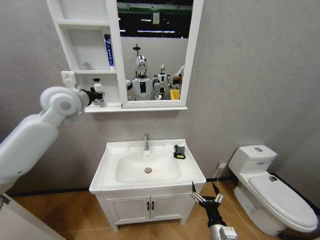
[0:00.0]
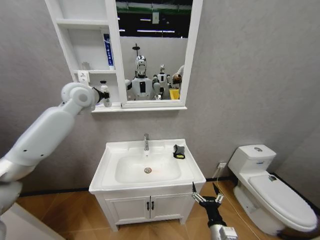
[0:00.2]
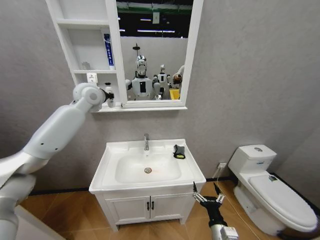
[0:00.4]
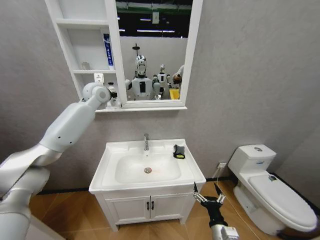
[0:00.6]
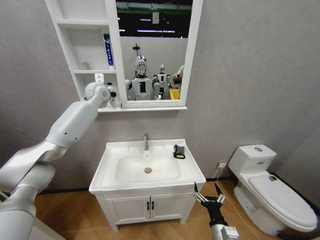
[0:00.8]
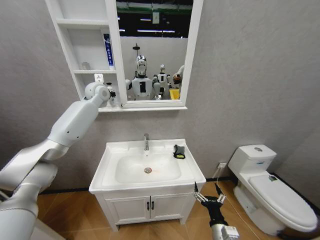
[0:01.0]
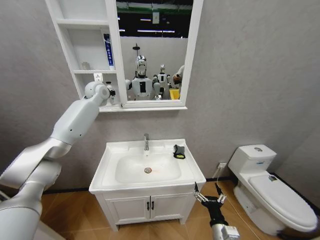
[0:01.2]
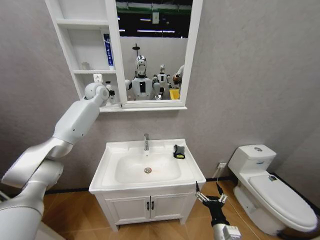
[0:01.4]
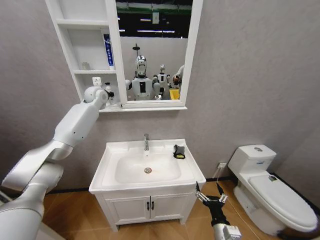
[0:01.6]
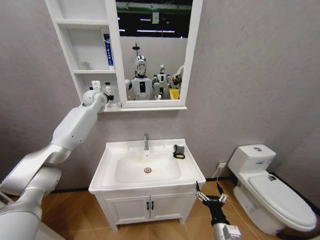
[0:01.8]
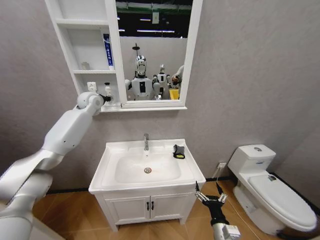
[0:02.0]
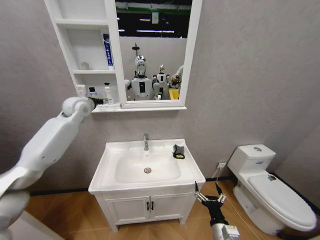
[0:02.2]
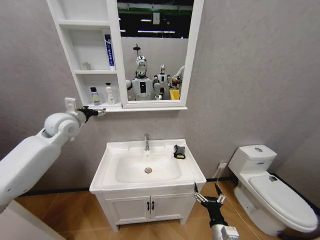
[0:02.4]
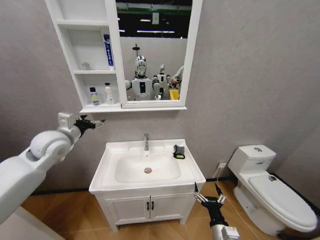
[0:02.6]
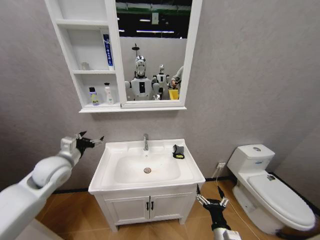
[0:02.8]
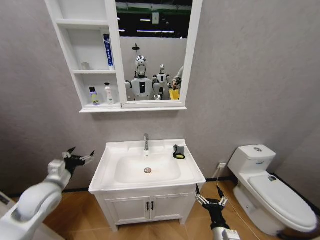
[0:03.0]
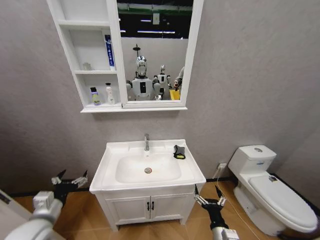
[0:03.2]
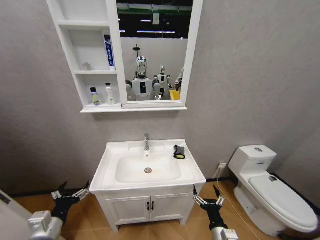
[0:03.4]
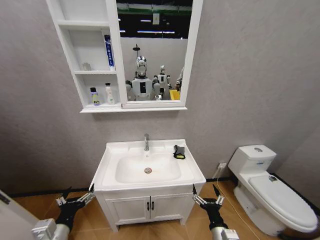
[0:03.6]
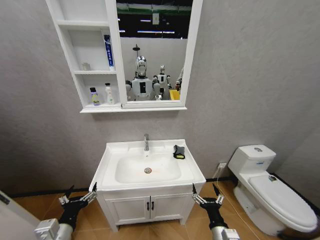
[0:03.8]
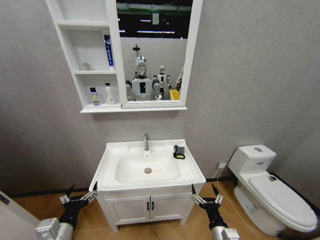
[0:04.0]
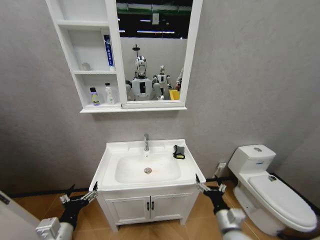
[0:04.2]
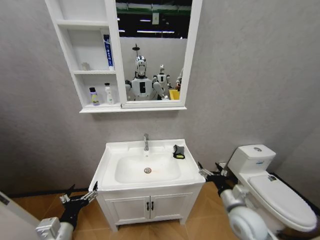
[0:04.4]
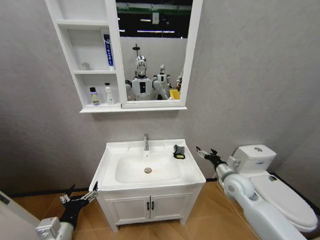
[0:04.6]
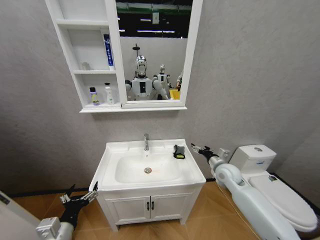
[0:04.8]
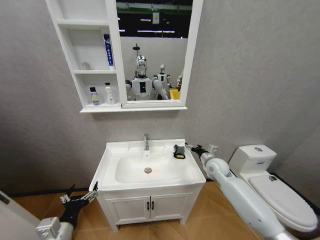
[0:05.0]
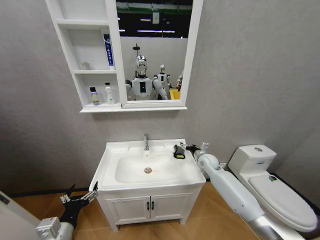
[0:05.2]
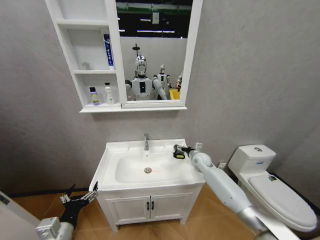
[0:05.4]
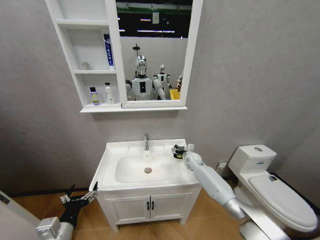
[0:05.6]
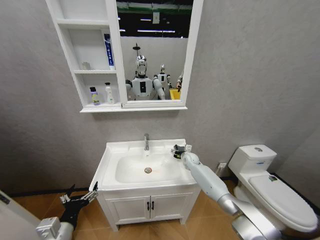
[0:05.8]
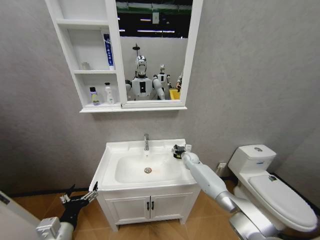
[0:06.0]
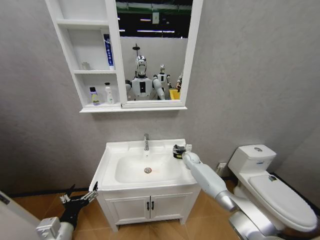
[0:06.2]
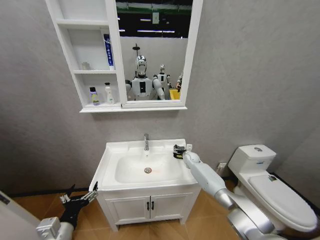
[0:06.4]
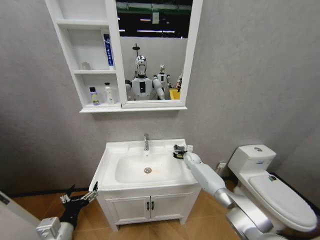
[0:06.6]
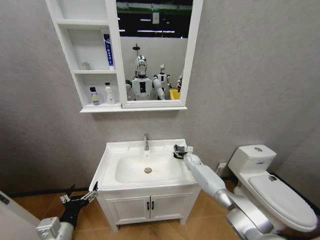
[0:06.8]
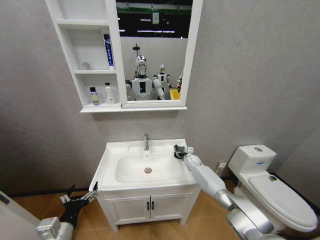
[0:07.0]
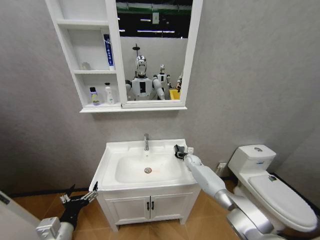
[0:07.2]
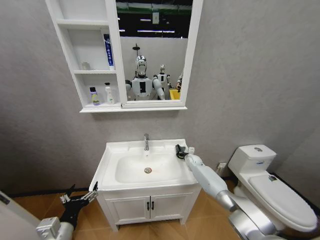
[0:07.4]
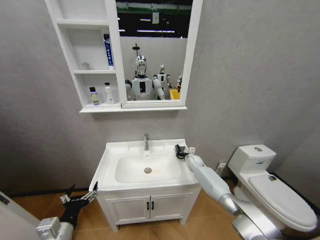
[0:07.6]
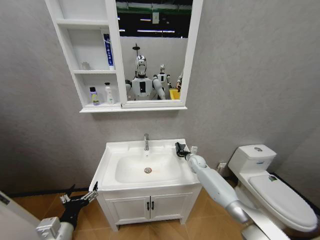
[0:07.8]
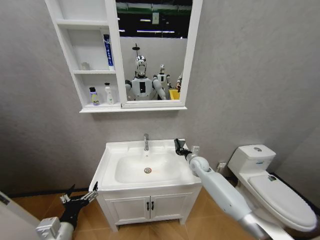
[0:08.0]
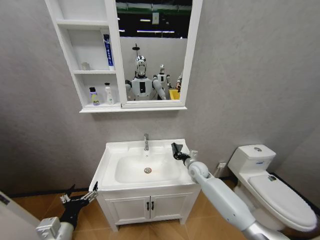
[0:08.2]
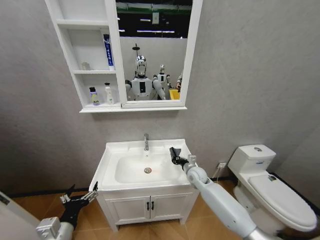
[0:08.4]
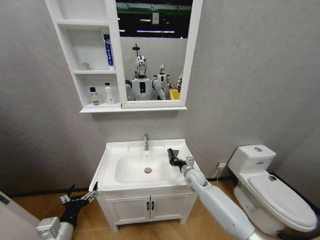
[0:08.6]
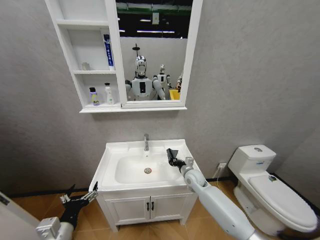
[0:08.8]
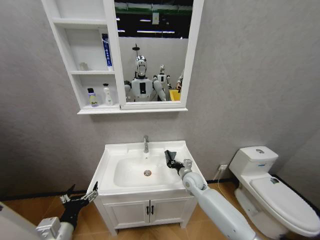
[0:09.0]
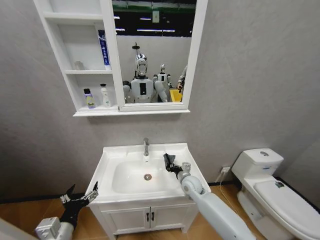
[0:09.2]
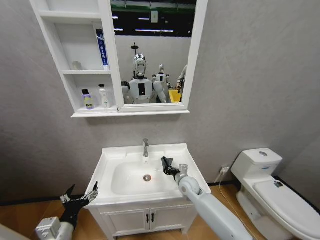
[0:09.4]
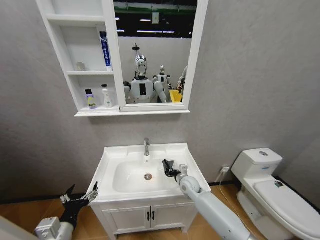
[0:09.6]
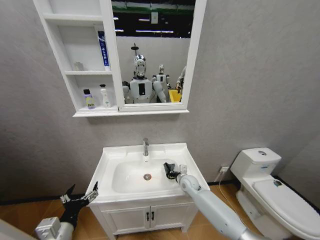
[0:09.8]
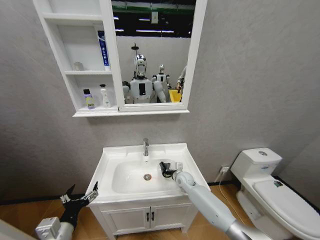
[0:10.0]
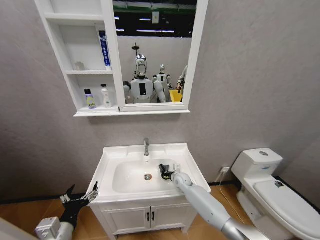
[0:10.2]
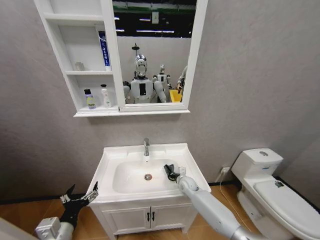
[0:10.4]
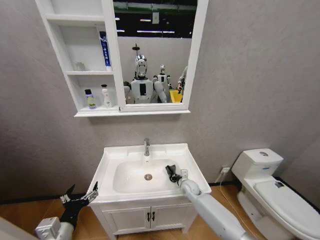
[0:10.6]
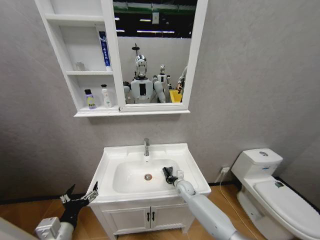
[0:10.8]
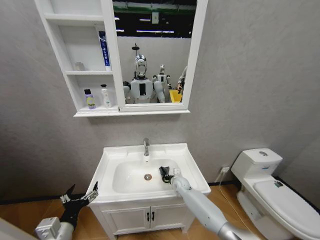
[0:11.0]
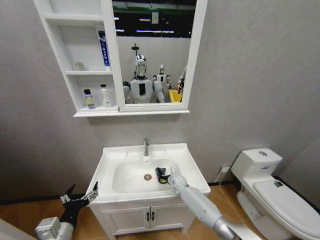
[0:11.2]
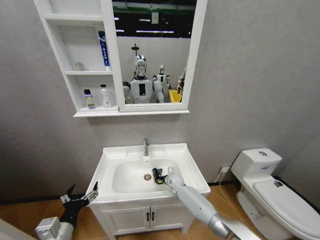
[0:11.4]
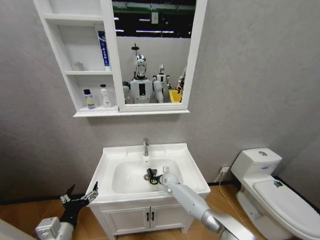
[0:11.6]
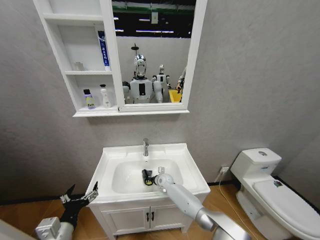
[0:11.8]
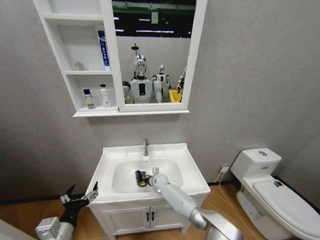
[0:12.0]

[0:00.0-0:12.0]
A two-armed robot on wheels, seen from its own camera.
Task of the whole recording: Move facial cleanser and shampoo from washbasin to cabinet, then wipe washbasin with towel.
0:00.0 to 0:01.6: The left gripper shifts about 20 cm forward.
0:01.6 to 0:03.0: The left gripper moves backward and downward, approximately 40 cm, and opens up.
0:03.0 to 0:04.4: The left gripper is displaced backward and to the right by some 15 cm, while the right gripper moves forward, upward and to the right, about 15 cm.
0:04.4 to 0:06.0: The right gripper goes about 35 cm forward.
0:06.0 to 0:07.6: The right gripper closes up.
0:07.6 to 0:09.0: The right gripper is displaced backward and to the left by about 20 cm.
0:09.0 to 0:10.4: The right gripper travels downward by roughly 10 cm.
0:10.4 to 0:12.0: The right gripper is displaced to the left by roughly 15 cm.

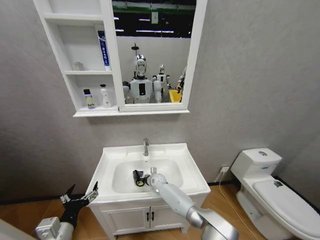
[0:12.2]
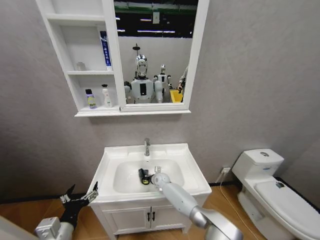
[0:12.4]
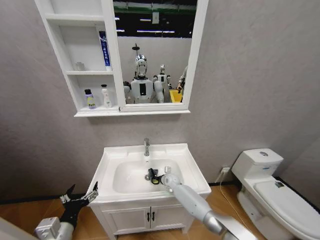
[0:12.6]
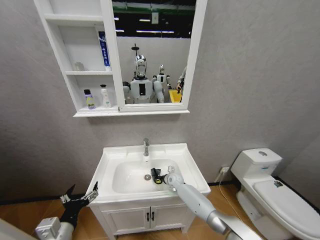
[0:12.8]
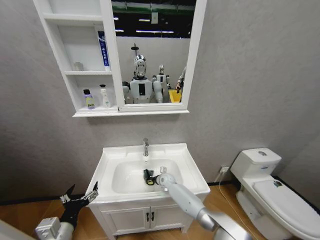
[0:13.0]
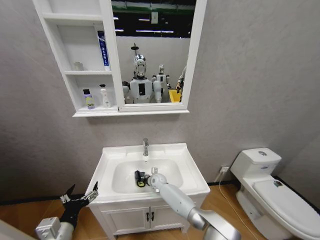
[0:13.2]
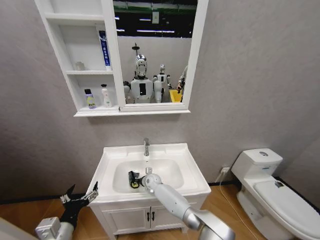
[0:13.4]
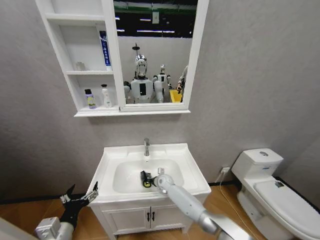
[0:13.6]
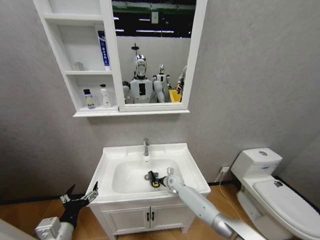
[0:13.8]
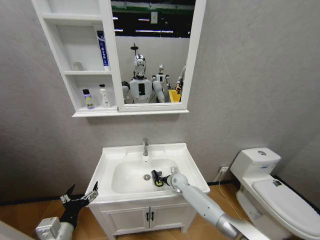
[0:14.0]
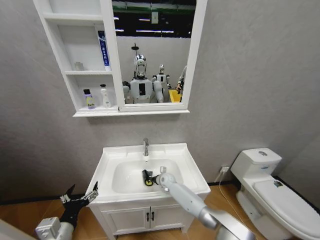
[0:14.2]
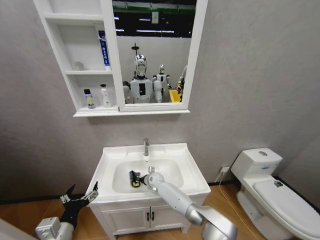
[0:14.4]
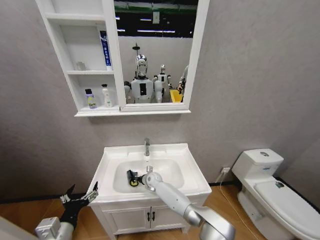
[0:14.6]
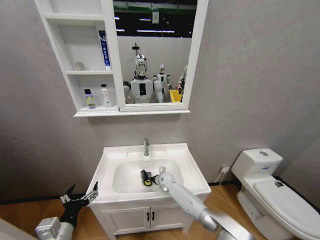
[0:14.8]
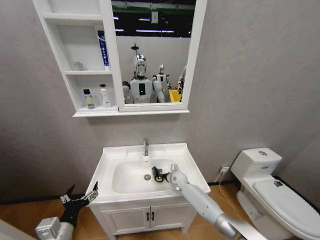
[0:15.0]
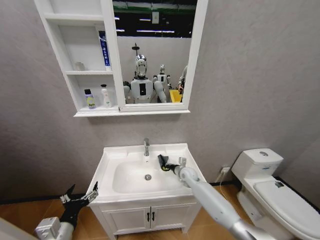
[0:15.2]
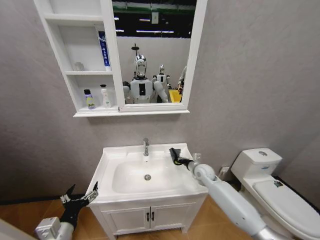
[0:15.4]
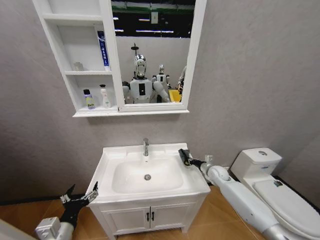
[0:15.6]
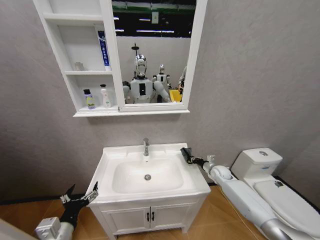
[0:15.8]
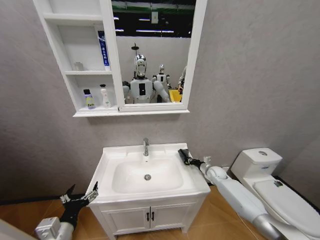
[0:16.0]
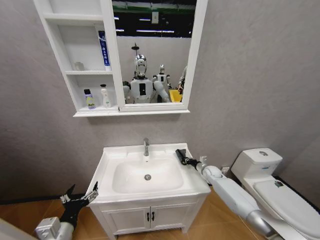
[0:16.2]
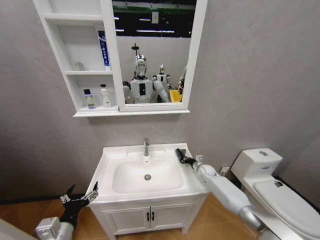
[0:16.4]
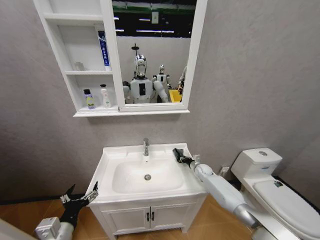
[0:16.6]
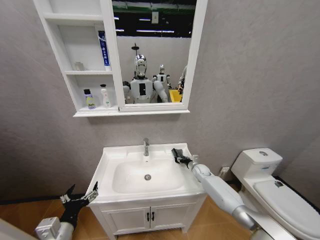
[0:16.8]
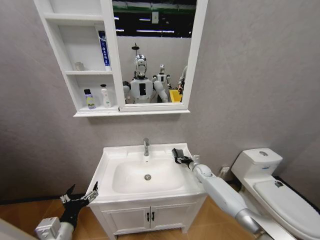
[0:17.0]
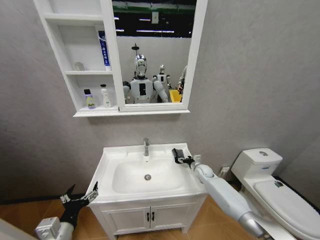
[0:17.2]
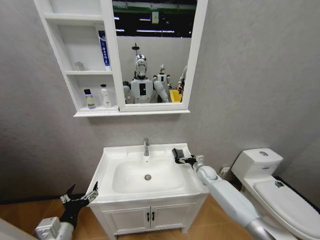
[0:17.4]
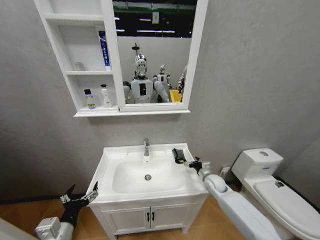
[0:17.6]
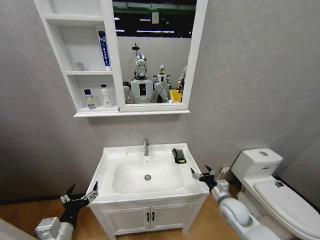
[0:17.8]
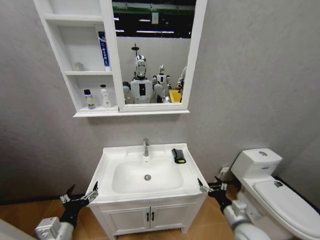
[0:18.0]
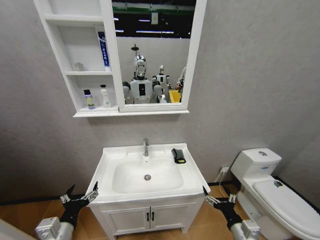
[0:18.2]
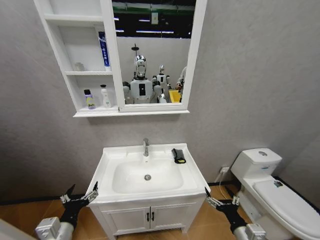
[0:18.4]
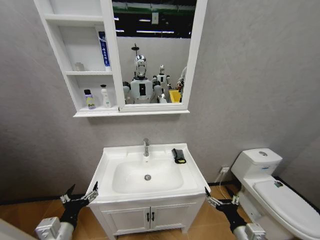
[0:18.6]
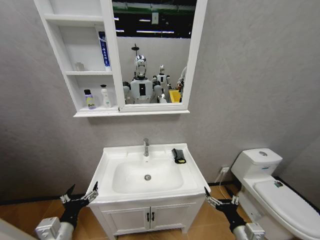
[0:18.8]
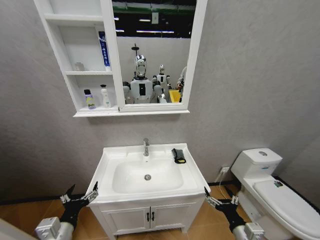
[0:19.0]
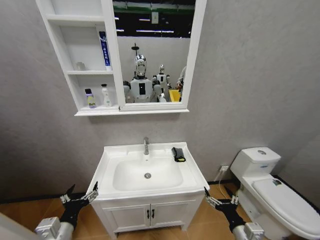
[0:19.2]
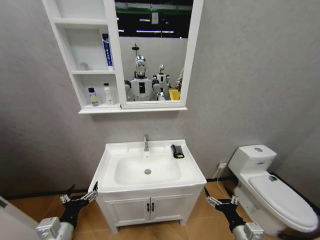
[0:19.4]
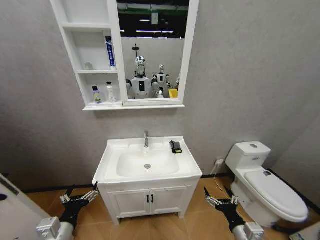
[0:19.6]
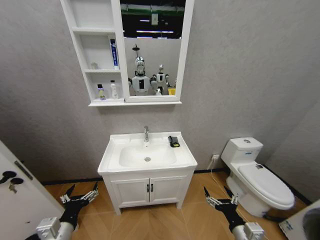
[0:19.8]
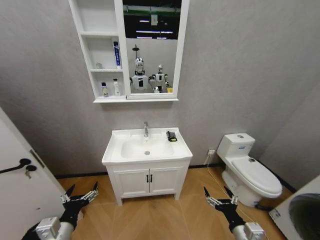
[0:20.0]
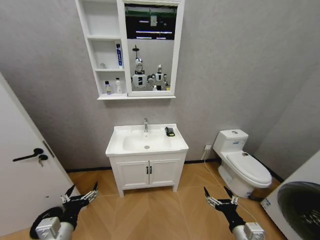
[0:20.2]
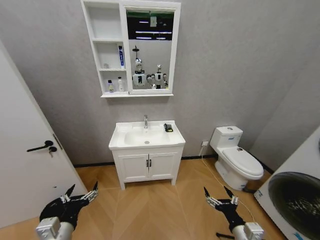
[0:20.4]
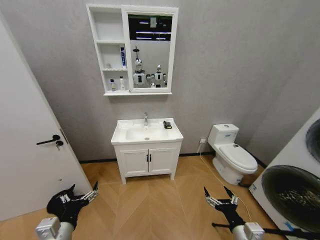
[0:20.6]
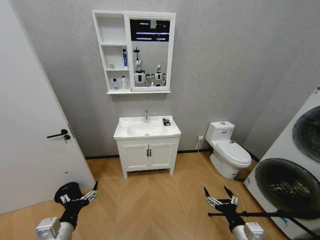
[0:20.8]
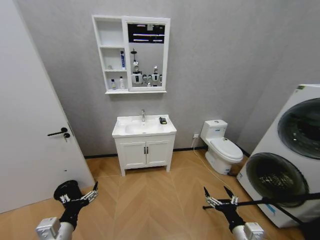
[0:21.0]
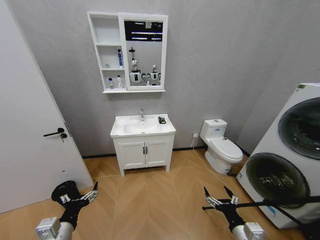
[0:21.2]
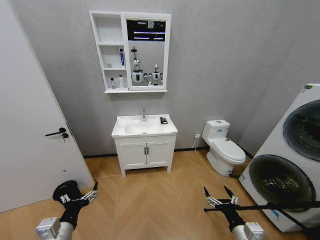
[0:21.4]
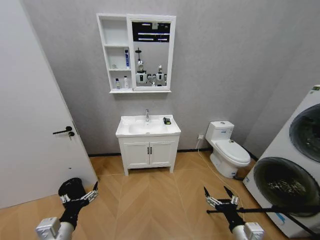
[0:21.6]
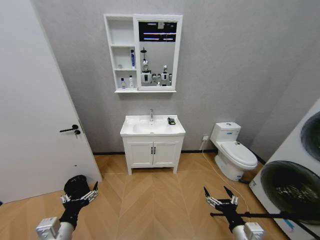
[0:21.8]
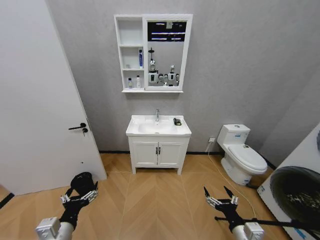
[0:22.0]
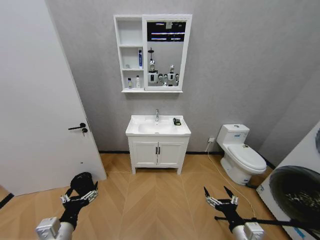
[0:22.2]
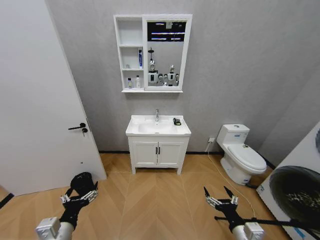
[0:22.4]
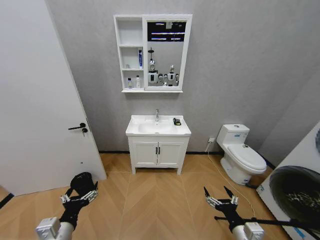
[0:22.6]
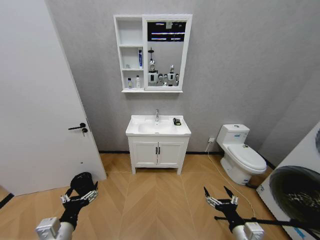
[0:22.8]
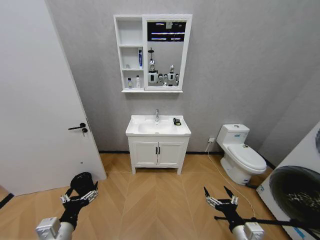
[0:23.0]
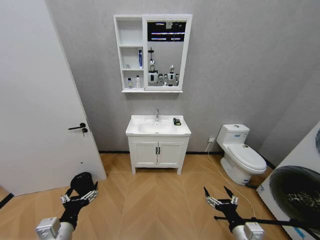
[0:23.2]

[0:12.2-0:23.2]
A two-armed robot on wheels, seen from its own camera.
Task of the whole recording: Move facial cleanser and shampoo from washbasin to cabinet, then wipe washbasin with towel.
0:12.2 to 0:13.8: The right gripper moves left and right over some 15 cm, changing direction 2 times.
0:13.8 to 0:15.4: The right gripper travels to the right and upward by approximately 20 cm.
0:15.4 to 0:17.0: The right gripper travels downward and forward by about 10 cm, moves approximately 10 cm to the right and comes back, and opens up.
0:17.0 to 0:18.4: The right gripper moves backward, approximately 40 cm.
